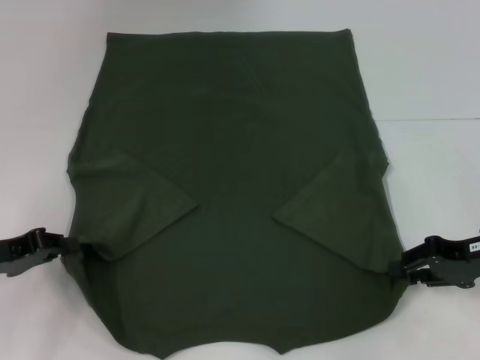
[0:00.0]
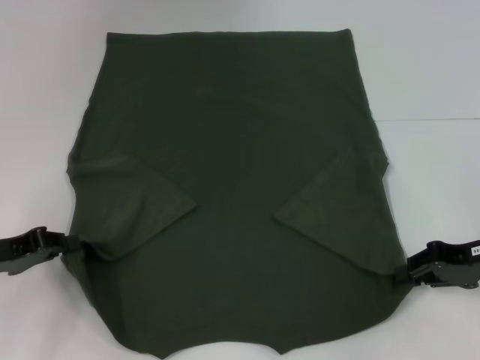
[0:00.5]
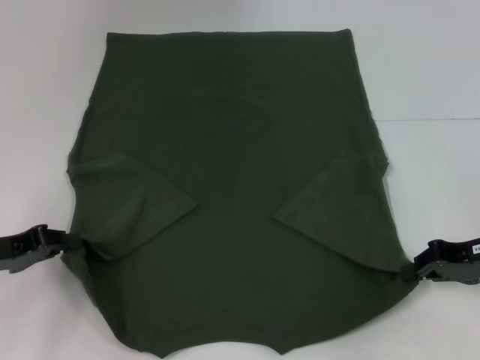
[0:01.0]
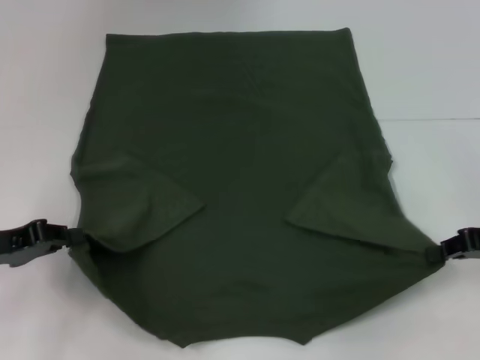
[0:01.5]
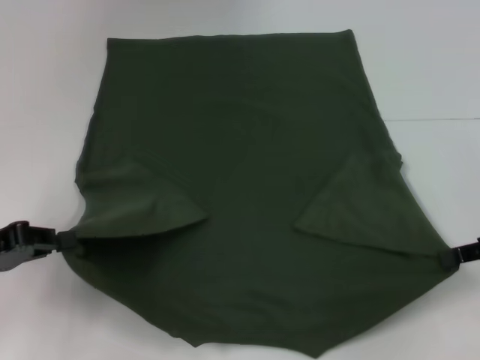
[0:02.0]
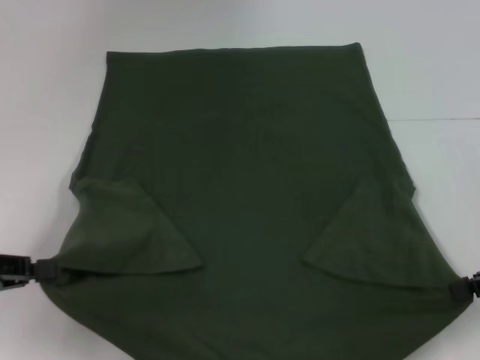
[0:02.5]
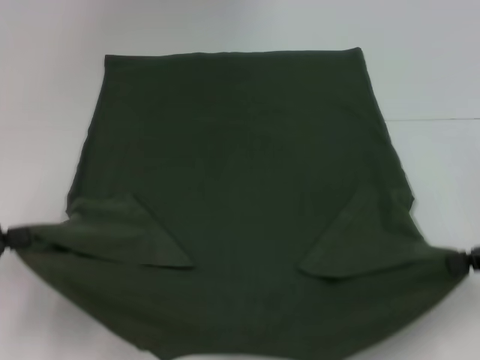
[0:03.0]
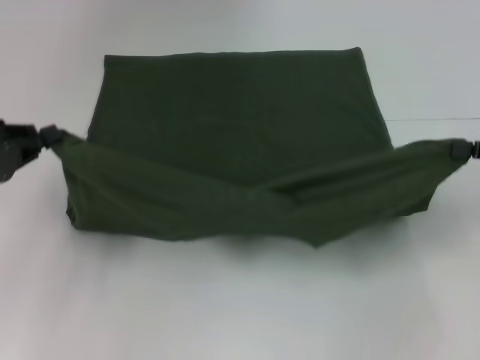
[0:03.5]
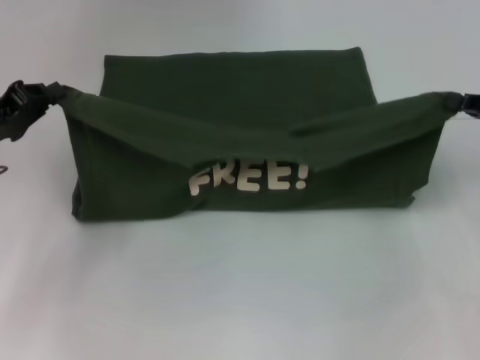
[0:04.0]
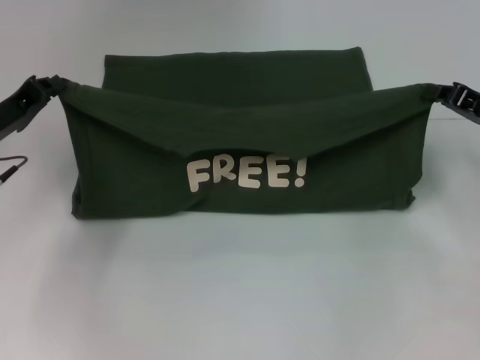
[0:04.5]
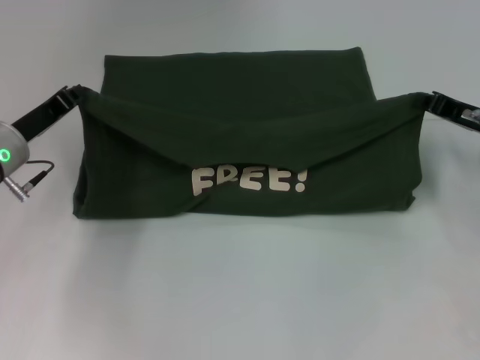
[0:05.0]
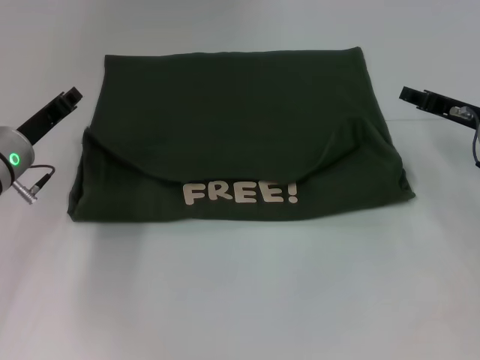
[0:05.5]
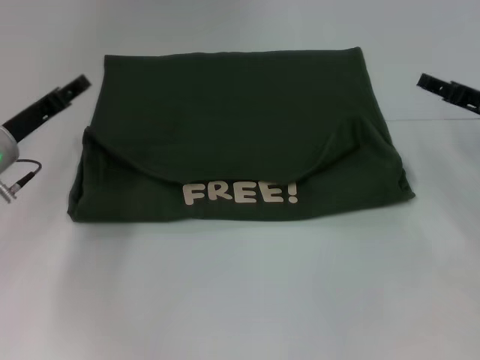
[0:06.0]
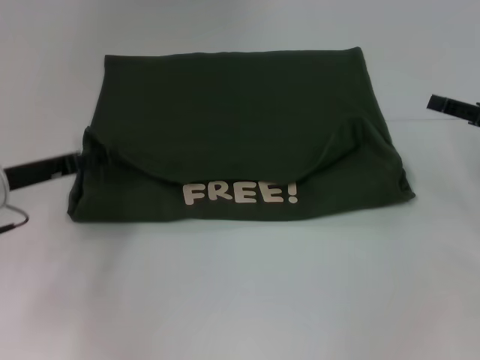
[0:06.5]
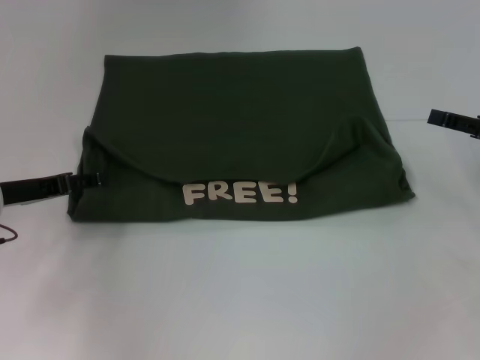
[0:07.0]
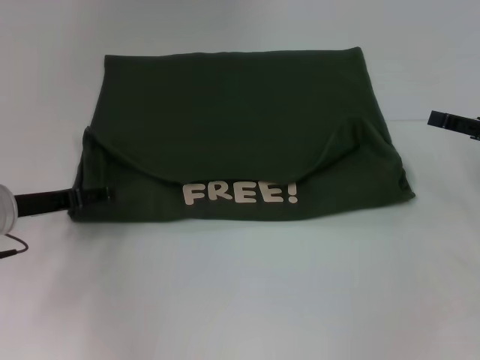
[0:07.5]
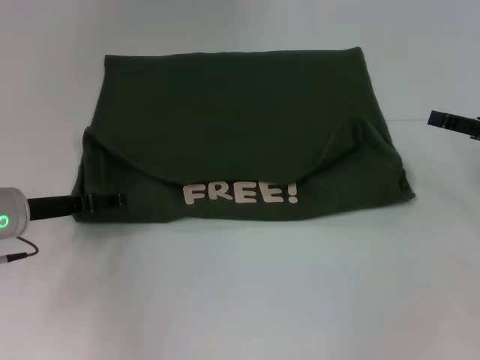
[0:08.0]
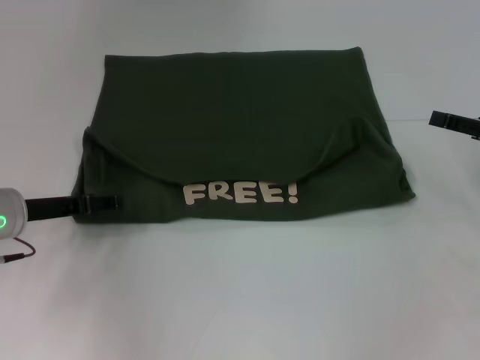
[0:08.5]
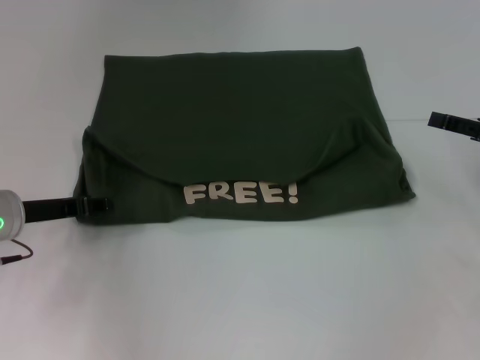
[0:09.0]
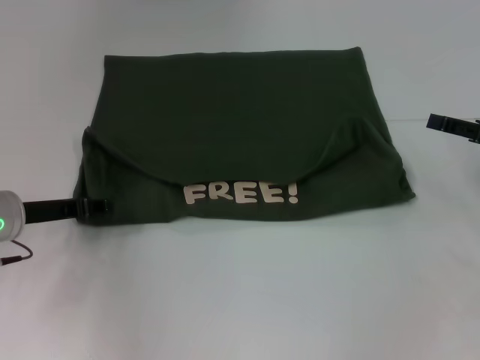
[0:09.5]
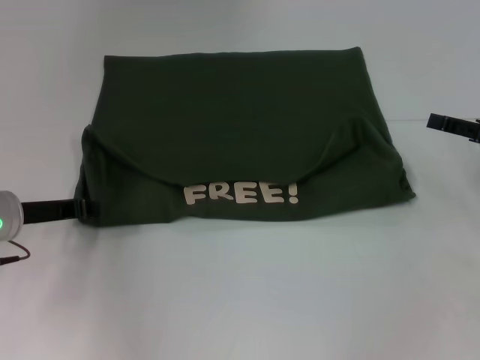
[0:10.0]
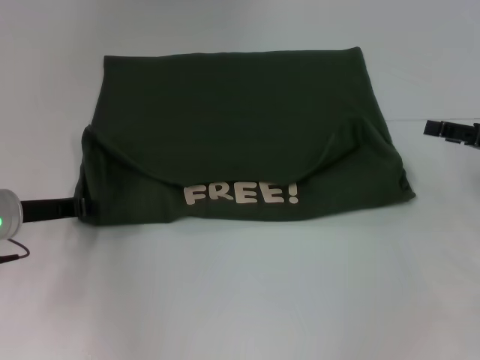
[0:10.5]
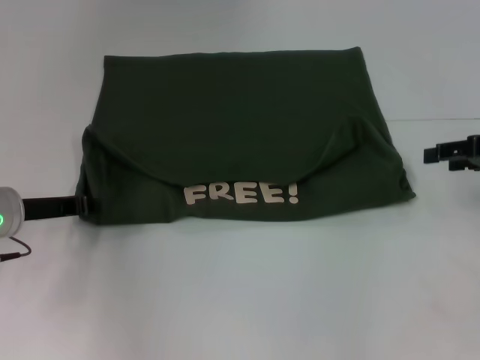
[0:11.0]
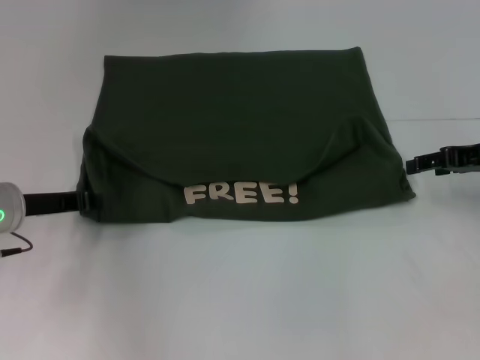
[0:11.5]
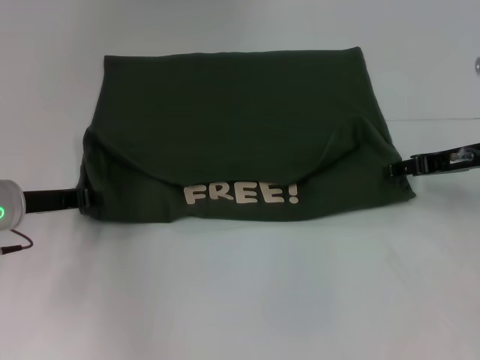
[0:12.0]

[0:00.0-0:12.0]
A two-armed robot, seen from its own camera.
Step, 0:00.5 to 0:05.5: Fold the clothes with your left hand.
Step, 0:00.5 to 0:05.5: Fold the clothes with your right hand.
0:00.0 to 0:02.0: The right gripper ends up roughly 5 cm from where it was, and closes.
0:02.0 to 0:04.0: The left gripper goes approximately 10 cm forward.
0:04.0 to 0:06.0: The right gripper shifts by approximately 5 cm, and opens up, while the left gripper moves some 5 cm, and opens.
0:06.0 to 0:08.0: The right gripper changes place by roughly 5 cm.
0:08.0 to 0:10.0: The left gripper closes up.
0:10.0 to 0:12.0: The right gripper moves to the left, about 5 cm.

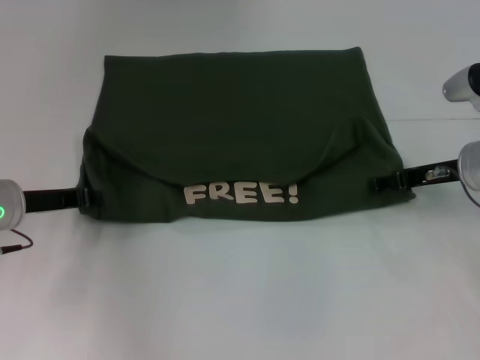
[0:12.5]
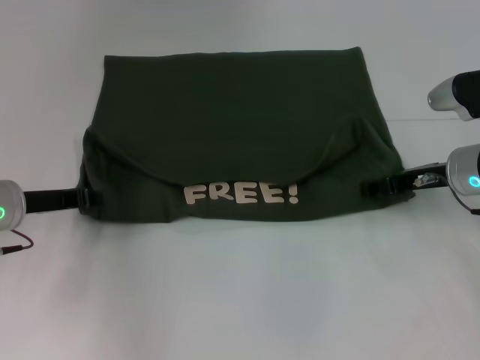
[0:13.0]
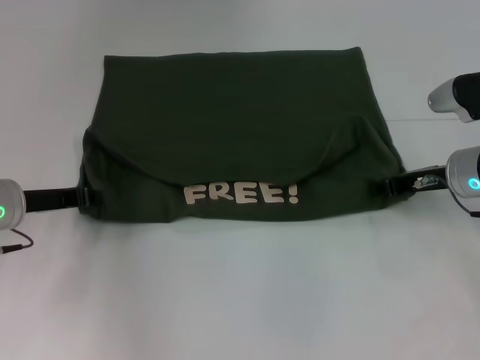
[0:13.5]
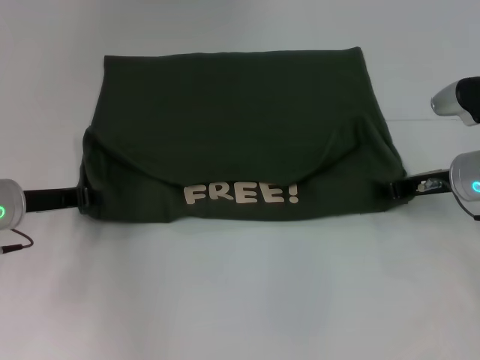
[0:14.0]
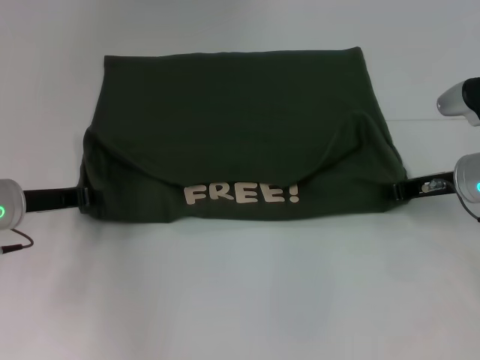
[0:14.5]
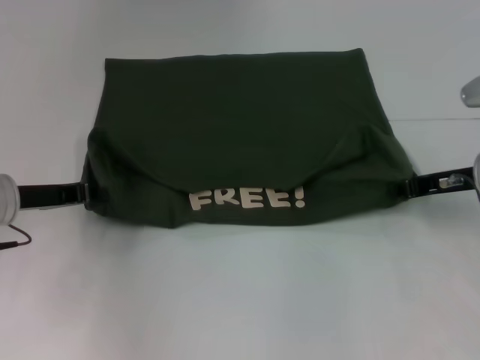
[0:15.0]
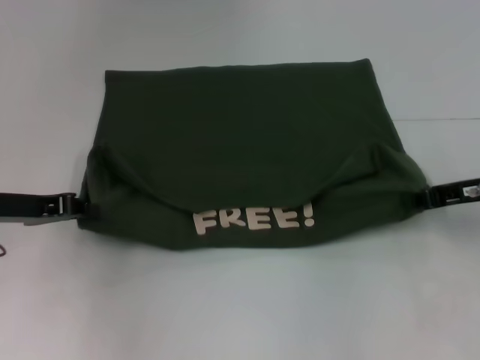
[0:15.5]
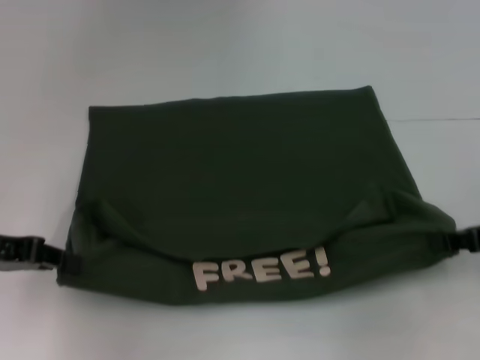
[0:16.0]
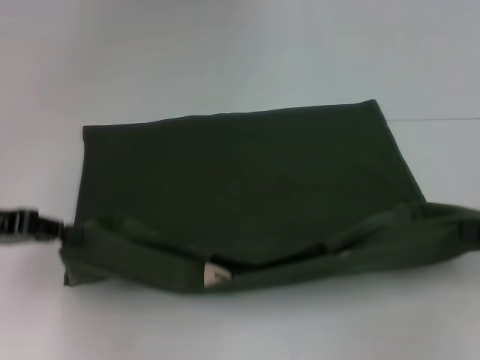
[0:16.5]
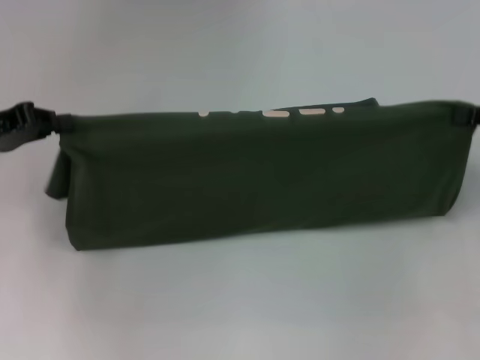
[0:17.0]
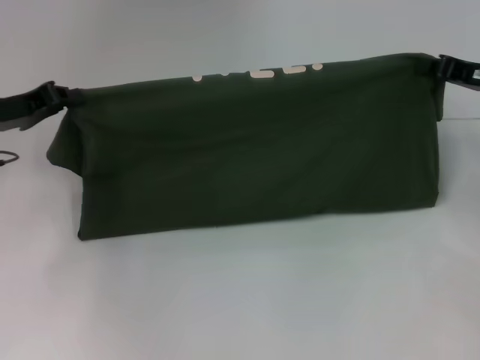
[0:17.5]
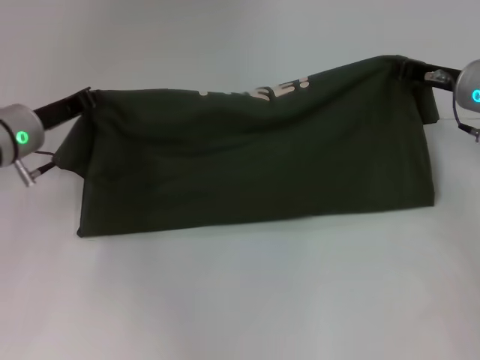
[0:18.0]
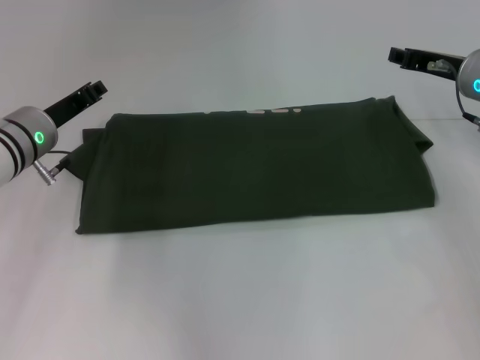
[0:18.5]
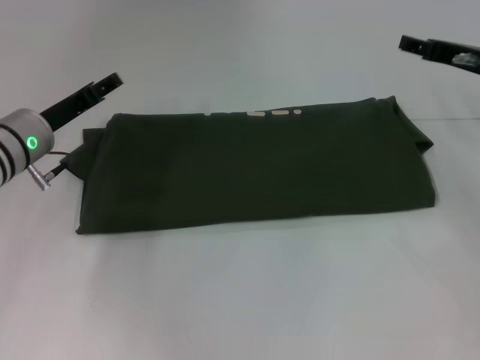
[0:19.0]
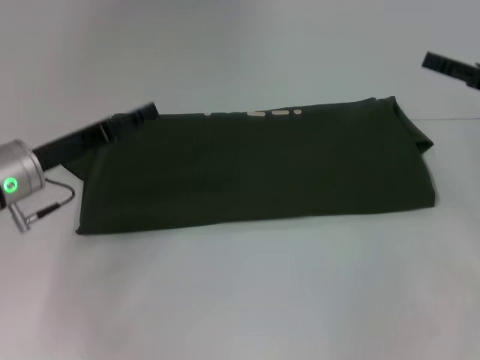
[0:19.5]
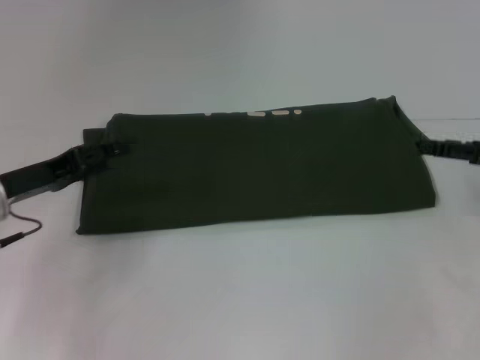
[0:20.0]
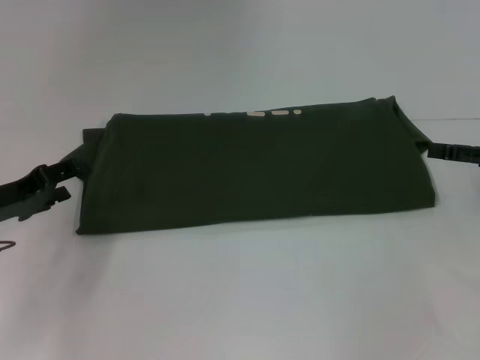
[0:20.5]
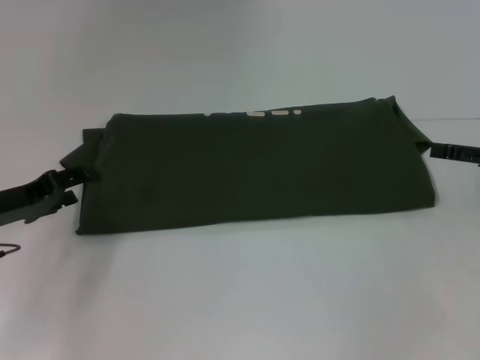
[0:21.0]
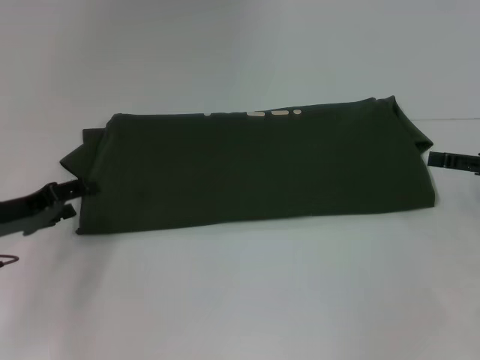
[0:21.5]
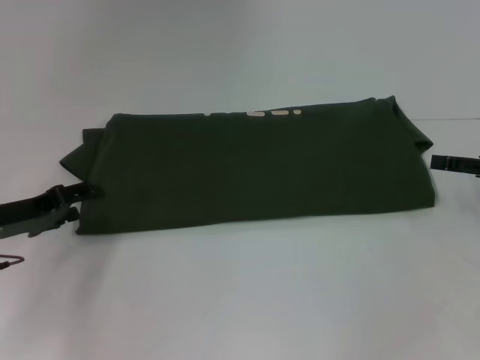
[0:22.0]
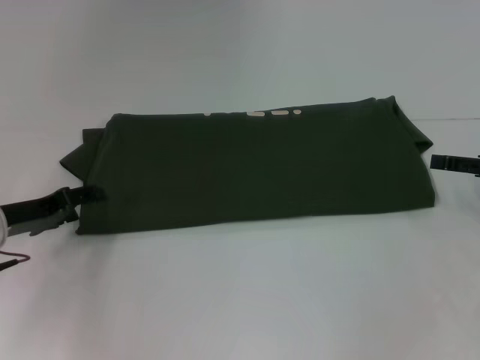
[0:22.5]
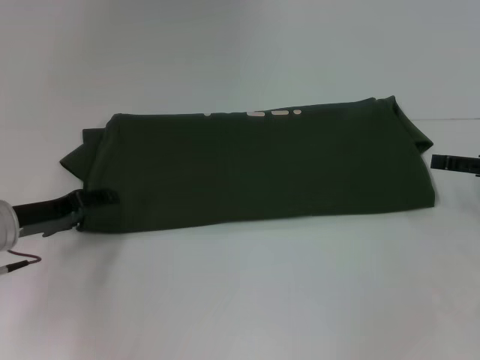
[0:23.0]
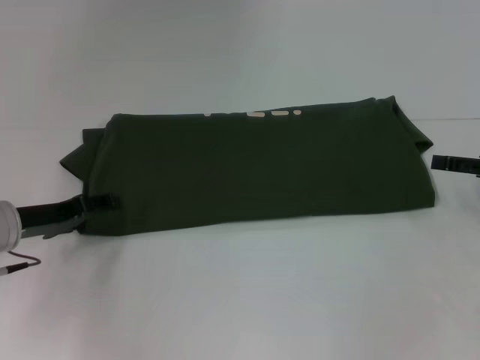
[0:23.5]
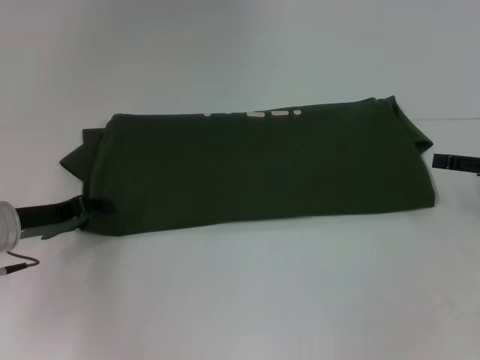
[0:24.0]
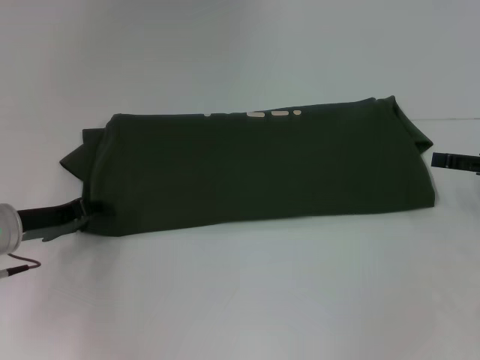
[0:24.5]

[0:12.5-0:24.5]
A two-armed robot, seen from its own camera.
Step, 0:12.5 to 0:16.0: Pull the clothes with your left hand.
Step, 0:12.5 to 0:16.0: Pull the clothes with your right hand.
Step, 0:16.5 to 0:18.5: Fold the clothes with your left hand.
Step, 0:16.5 to 0:18.5: Fold the clothes with your right hand.
0:12.5 to 0:14.5: The right gripper closes.
0:14.5 to 0:16.5: The right gripper goes approximately 15 cm backward and to the right, while the left gripper is displaced upward and backward by approximately 10 cm.
0:16.5 to 0:18.5: The right gripper shifts about 20 cm forward and to the left. The left gripper moves forward, to the right and downward, some 15 cm.
0:18.5 to 0:20.5: The right gripper goes approximately 15 cm backward and to the right, and opens up. Meanwhile the left gripper is displaced backward and to the left by roughly 10 cm, and opens.
0:20.5 to 0:24.5: The grippers make only small movements.

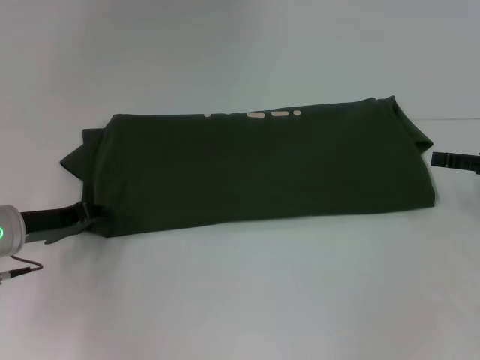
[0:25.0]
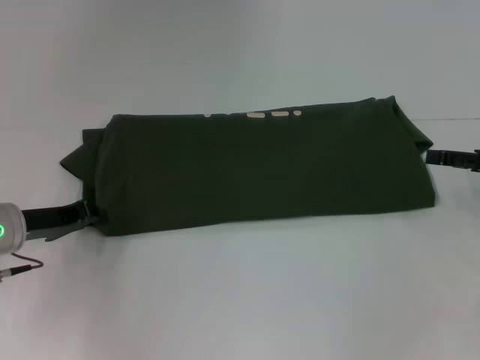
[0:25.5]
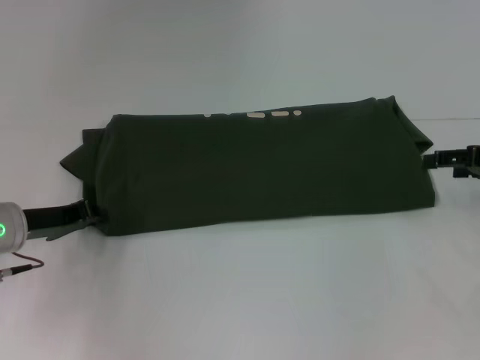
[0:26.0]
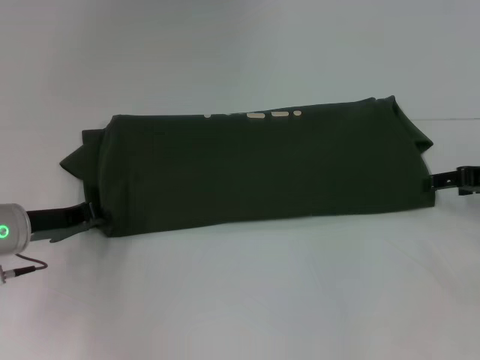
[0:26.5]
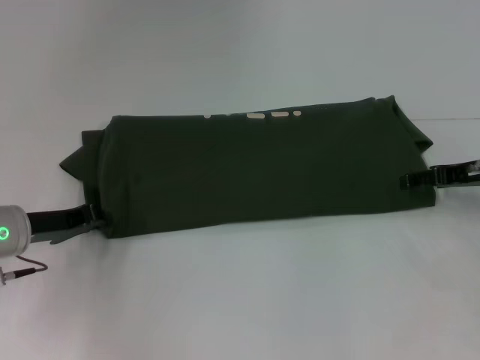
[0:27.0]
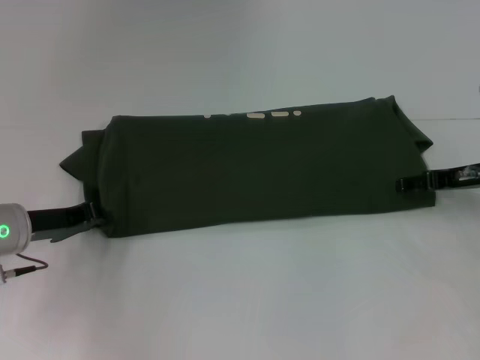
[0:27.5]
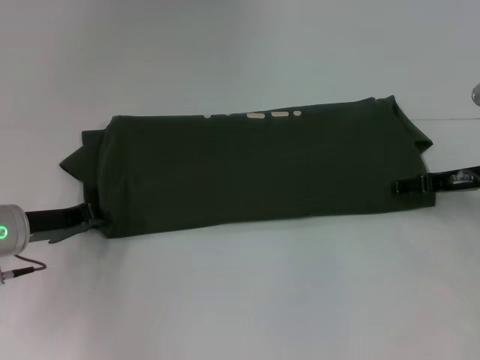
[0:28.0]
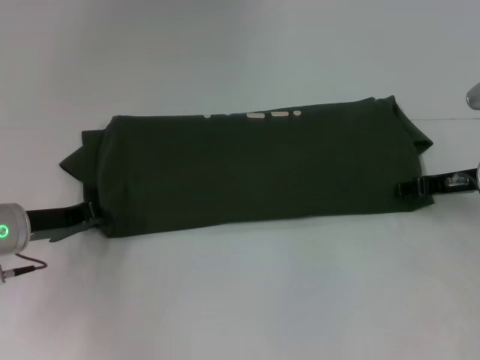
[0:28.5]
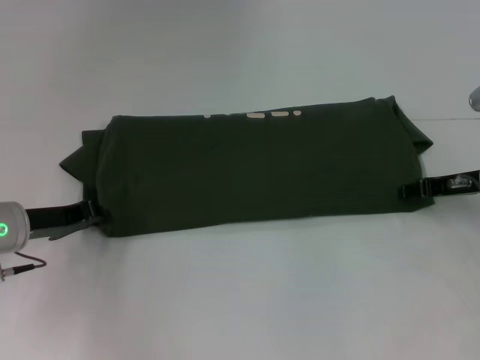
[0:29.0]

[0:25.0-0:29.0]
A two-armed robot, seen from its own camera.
0:25.0 to 0:27.0: The left gripper closes its fingers. Meanwhile the right gripper heads to the left, covering some 5 cm.
0:27.0 to 0:29.0: The right gripper closes up.
